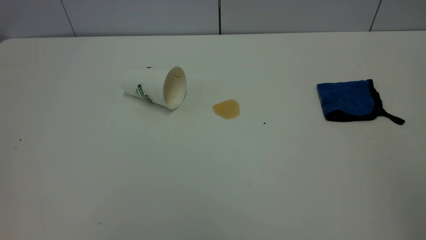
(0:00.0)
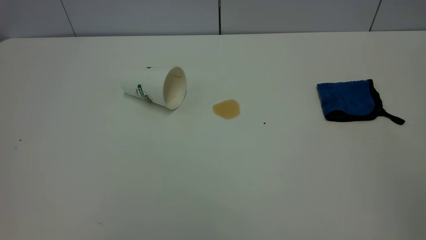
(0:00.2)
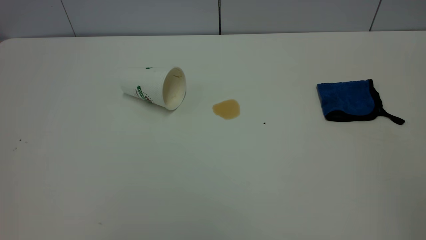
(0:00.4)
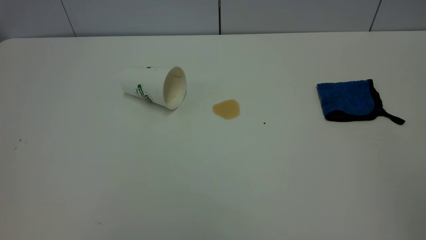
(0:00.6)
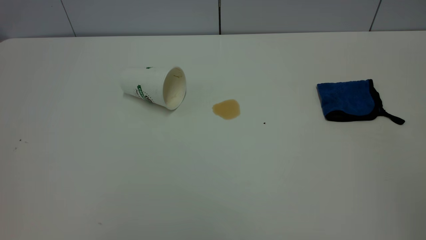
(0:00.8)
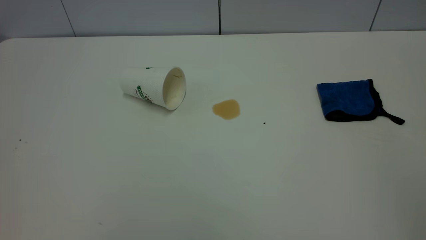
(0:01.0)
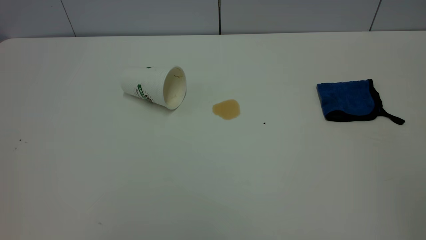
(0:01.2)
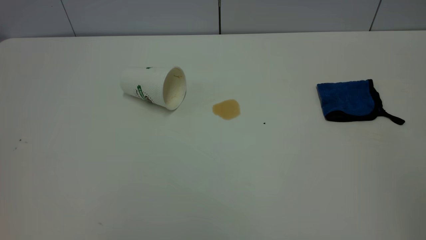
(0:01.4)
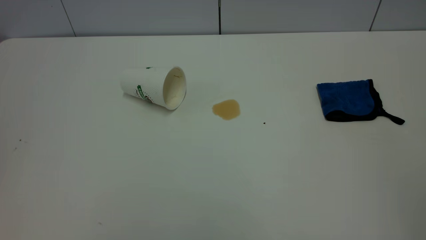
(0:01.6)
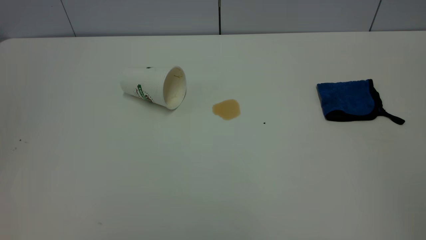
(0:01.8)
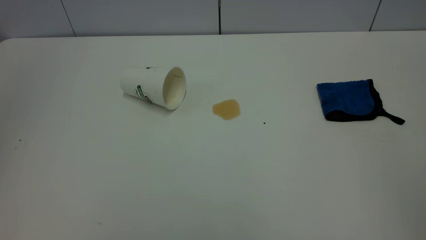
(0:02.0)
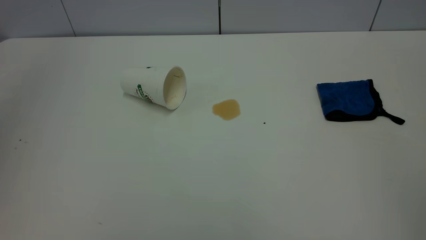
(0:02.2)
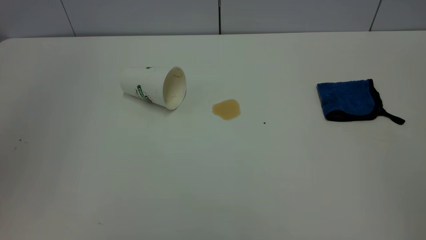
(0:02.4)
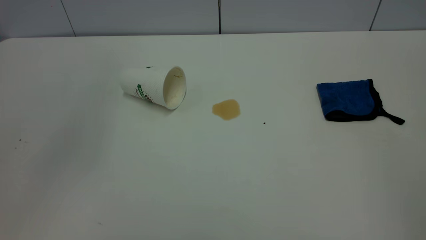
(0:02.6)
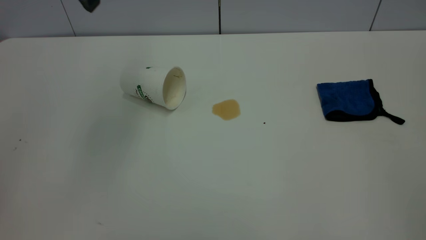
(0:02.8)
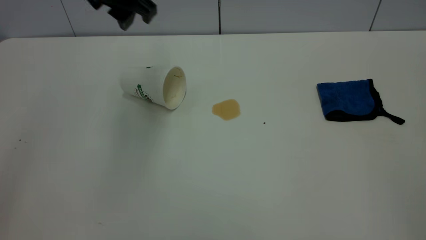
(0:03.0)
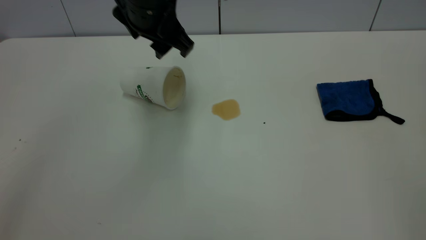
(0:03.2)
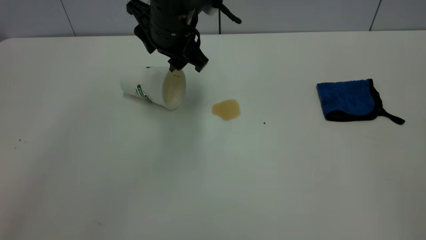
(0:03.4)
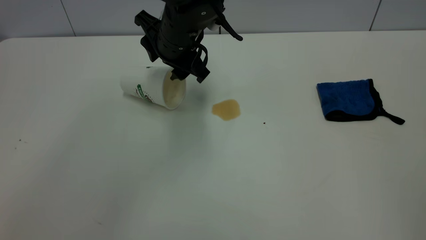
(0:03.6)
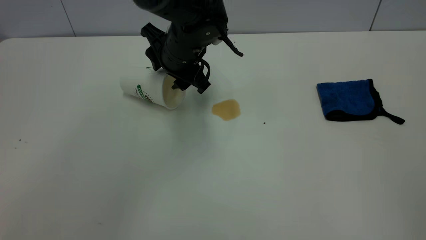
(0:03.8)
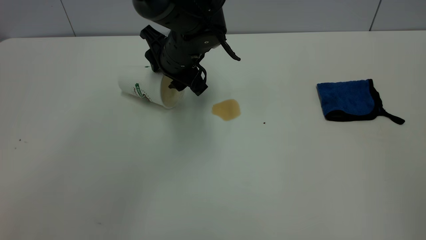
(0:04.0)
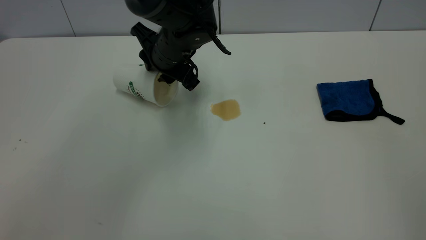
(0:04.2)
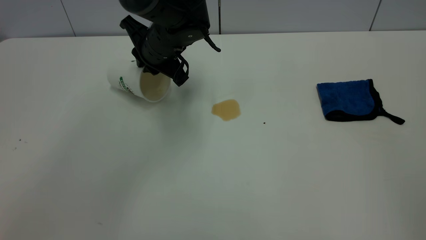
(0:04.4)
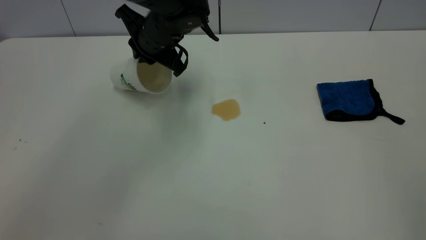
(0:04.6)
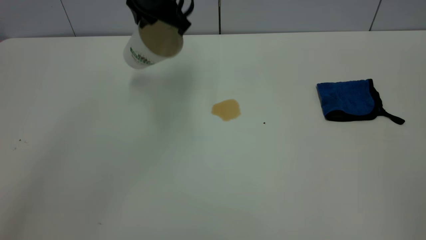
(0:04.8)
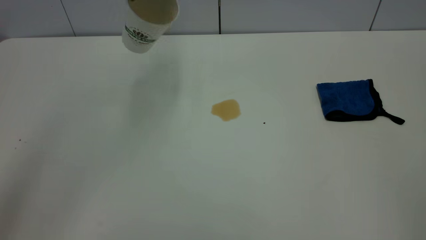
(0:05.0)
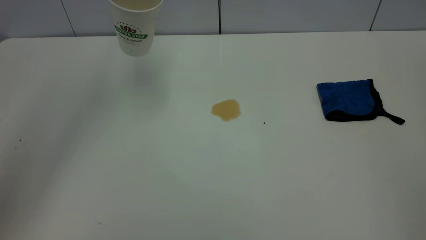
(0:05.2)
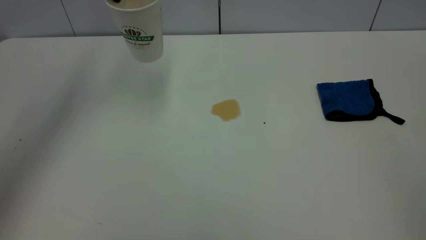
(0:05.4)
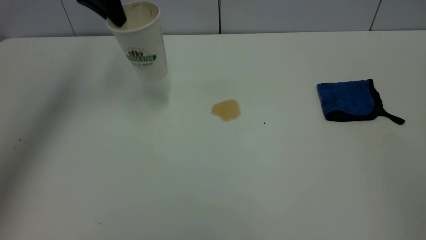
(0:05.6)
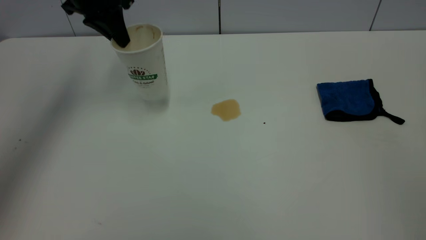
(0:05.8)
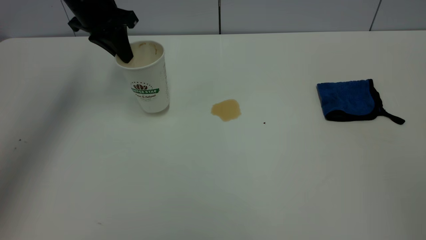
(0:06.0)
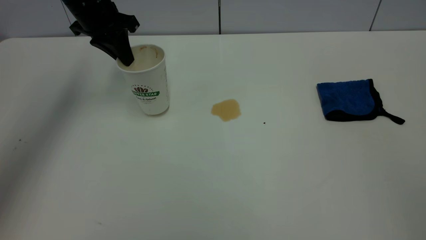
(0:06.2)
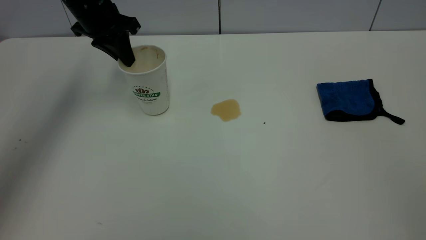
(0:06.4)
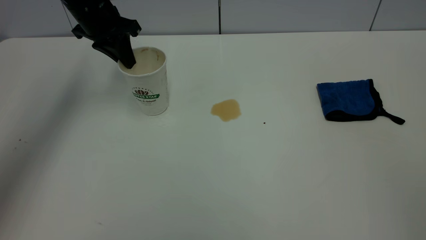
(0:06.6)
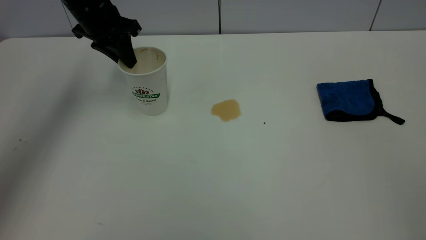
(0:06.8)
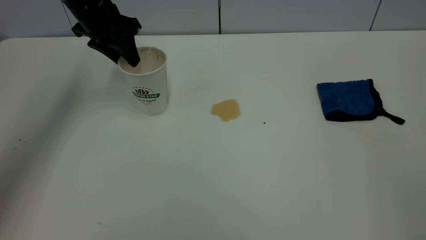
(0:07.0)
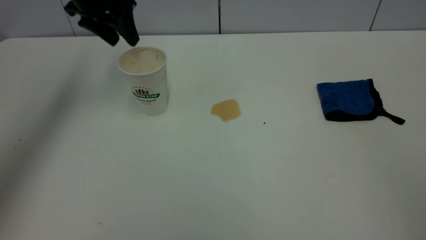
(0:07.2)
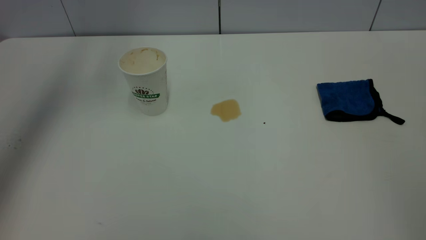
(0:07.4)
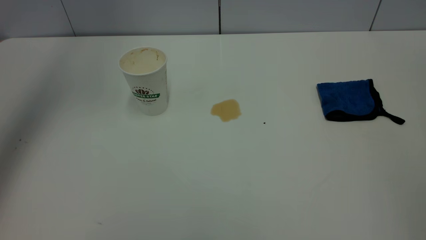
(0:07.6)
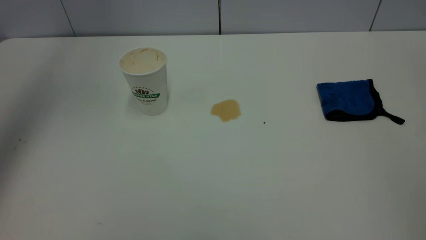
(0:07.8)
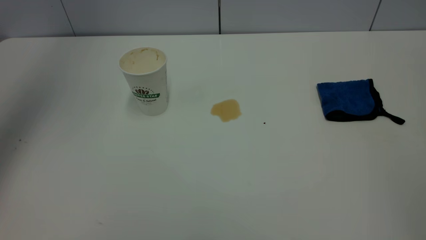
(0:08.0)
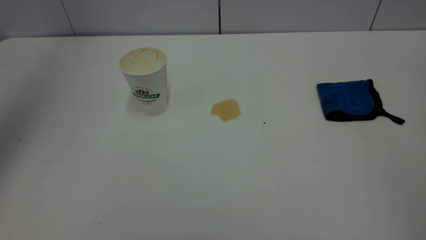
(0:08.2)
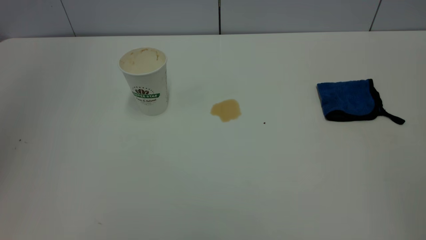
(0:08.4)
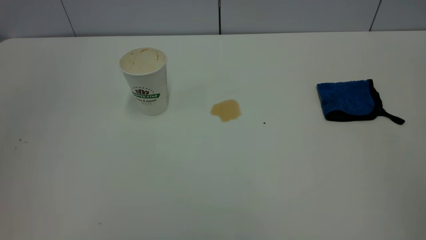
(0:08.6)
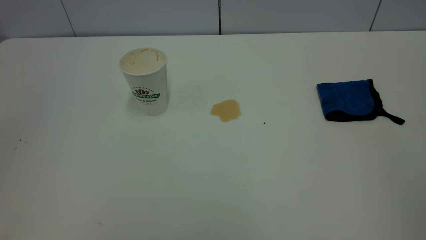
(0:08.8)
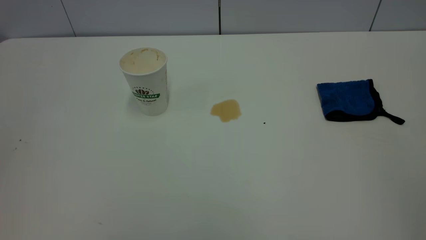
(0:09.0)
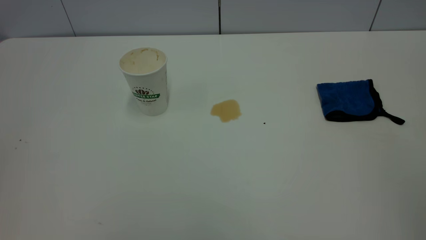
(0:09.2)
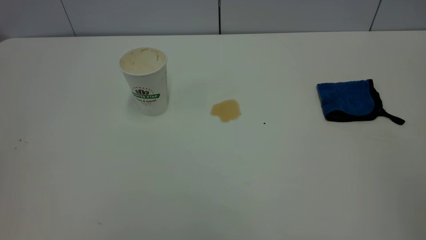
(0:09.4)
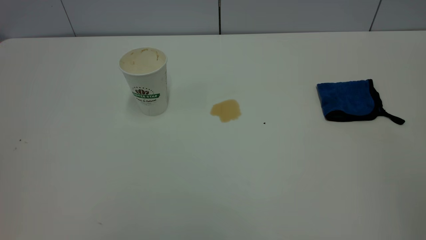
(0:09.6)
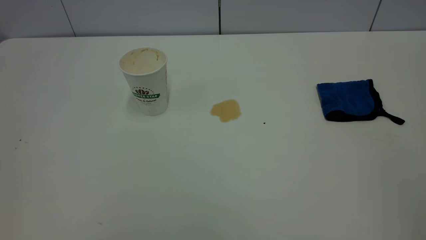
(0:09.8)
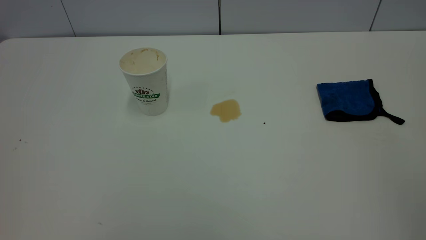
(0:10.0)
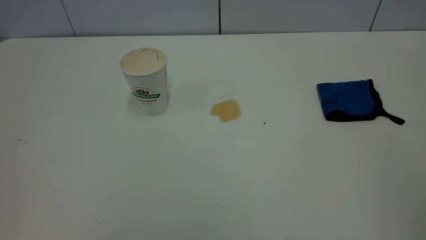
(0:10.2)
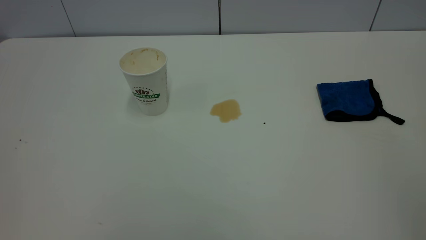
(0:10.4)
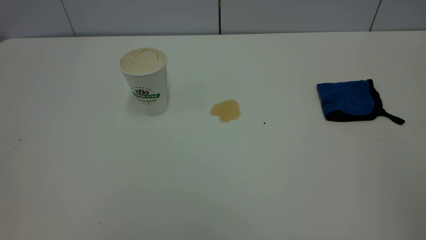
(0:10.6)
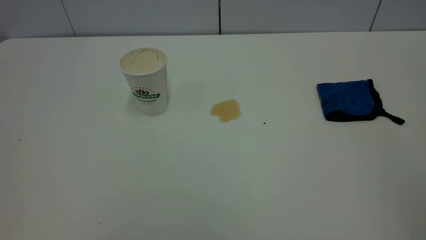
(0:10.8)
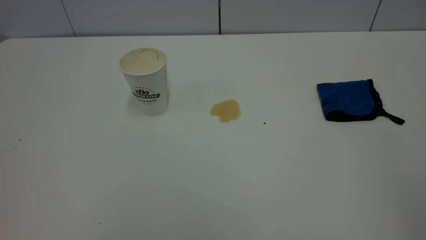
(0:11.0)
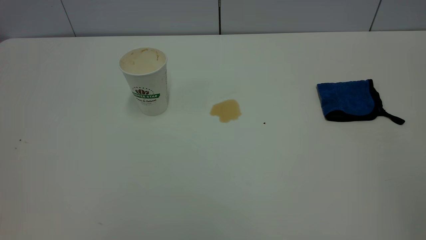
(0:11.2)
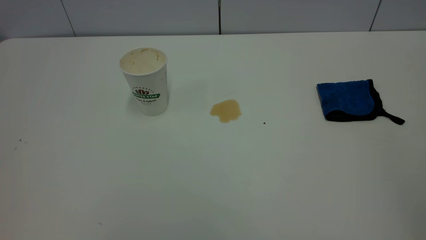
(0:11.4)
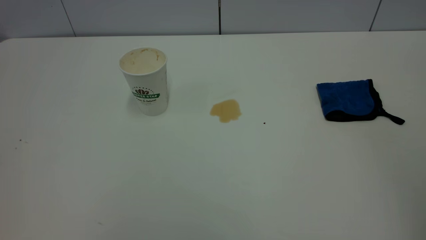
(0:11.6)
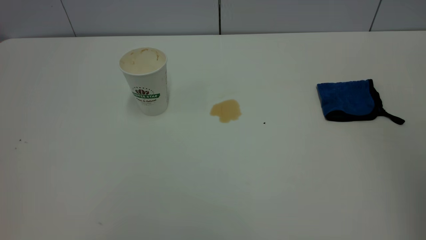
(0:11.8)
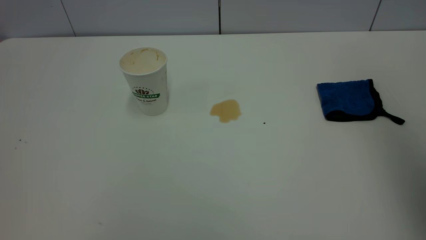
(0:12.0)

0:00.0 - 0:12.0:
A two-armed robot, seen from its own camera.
Task of the whole recording: the left gripper pick up the fallen cup and place it upright, the right gripper grasp the blue rag and wipe the tea stain on the table, the right gripper put the blue rag back in its original position.
Step, 0:00.0 - 0:07.0: Stand the paper cup upright.
0:01.6 - 0:03.0: The left gripper goes roughly 40 cm forward, to the right and downward.
0:03.0 - 0:04.4: The left gripper travels downward and forward by approximately 15 cm, and closes.
0:04.4 - 0:06.0: The left gripper moves to the left and upward, some 15 cm.
0:06.0 - 0:07.6: The left gripper heads upward, covering approximately 20 cm, and opens its fingers.
0:07.6 - 0:09.0: The left gripper goes roughly 40 cm backward.
0:10.4 - 0:12.0: The right gripper shifts some 20 cm forward, and opens its fingers.

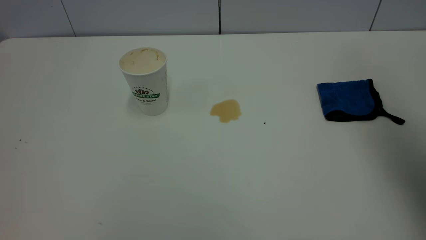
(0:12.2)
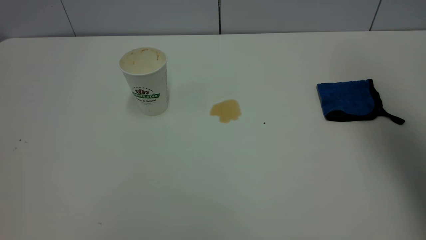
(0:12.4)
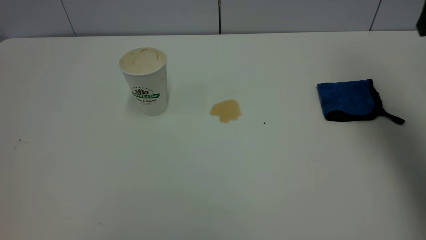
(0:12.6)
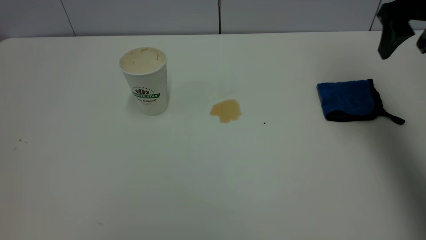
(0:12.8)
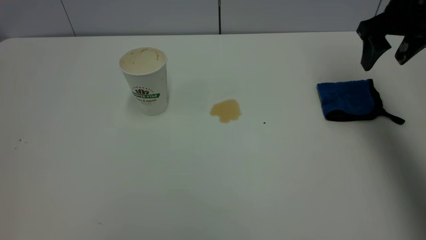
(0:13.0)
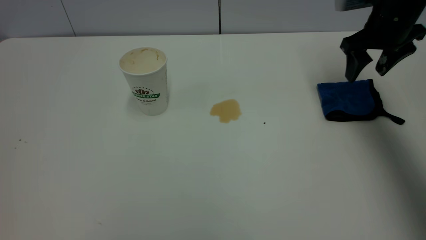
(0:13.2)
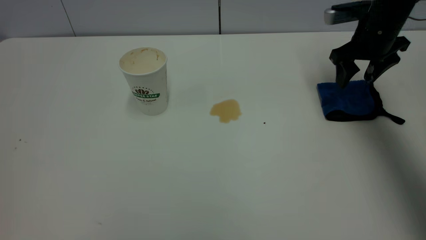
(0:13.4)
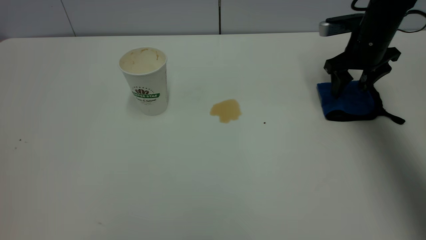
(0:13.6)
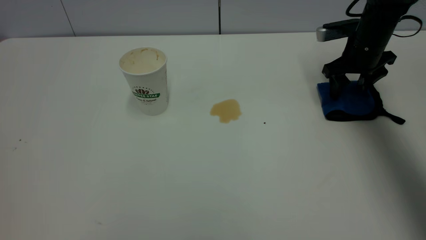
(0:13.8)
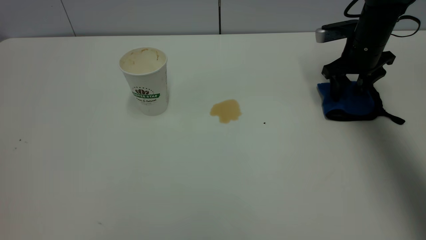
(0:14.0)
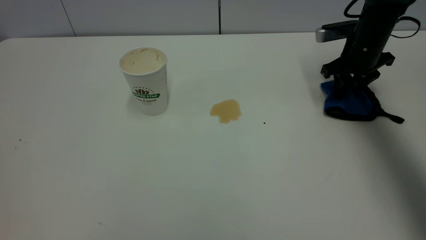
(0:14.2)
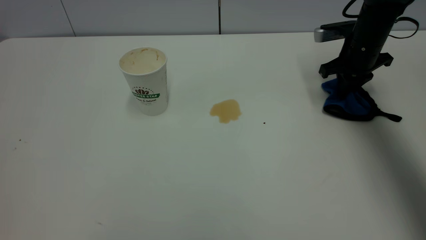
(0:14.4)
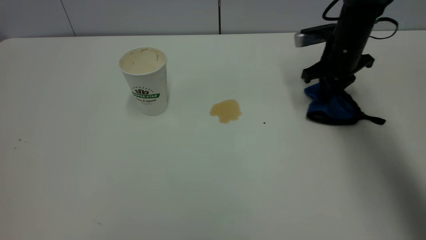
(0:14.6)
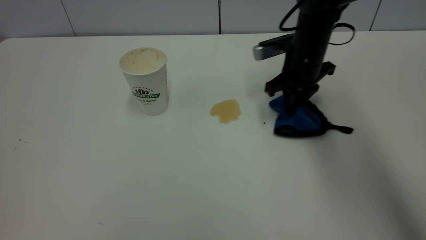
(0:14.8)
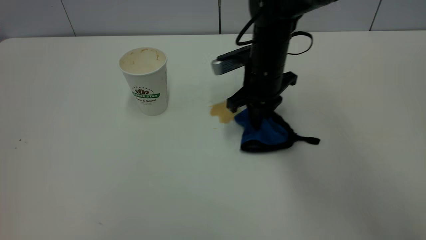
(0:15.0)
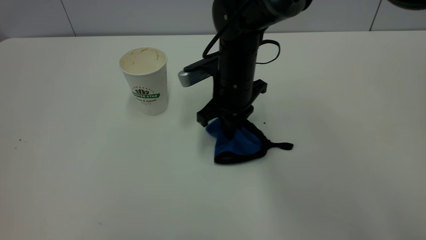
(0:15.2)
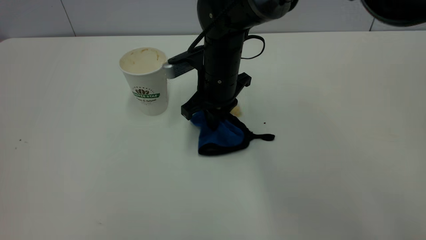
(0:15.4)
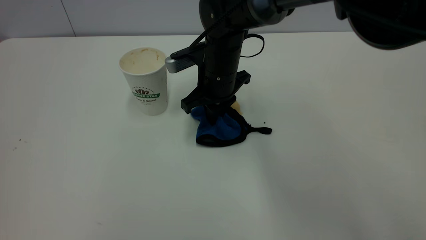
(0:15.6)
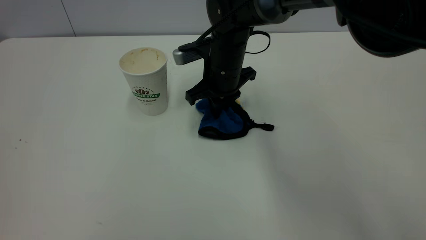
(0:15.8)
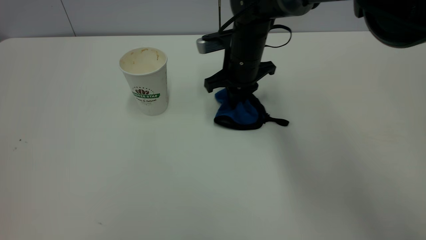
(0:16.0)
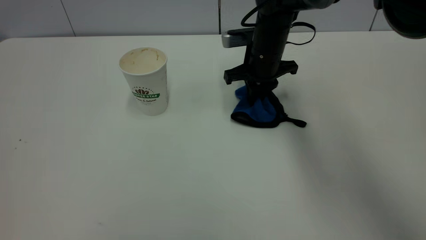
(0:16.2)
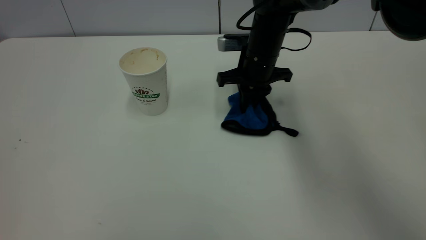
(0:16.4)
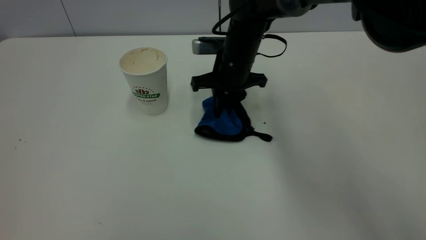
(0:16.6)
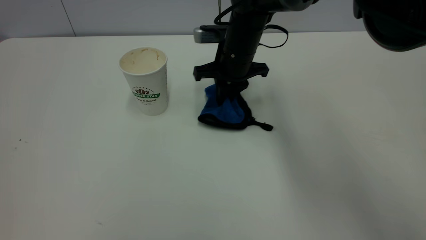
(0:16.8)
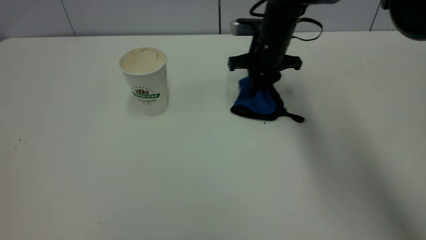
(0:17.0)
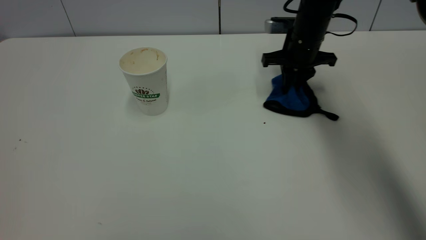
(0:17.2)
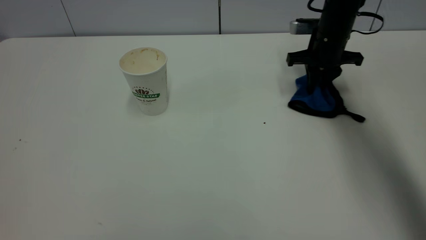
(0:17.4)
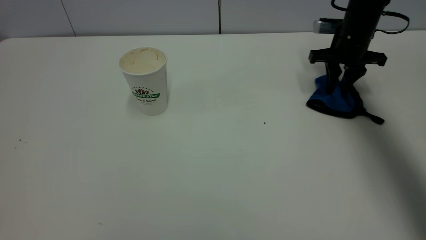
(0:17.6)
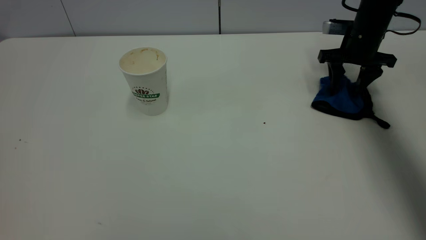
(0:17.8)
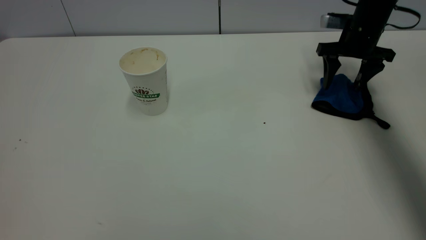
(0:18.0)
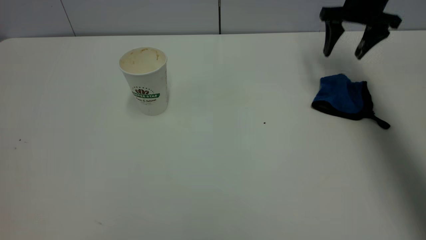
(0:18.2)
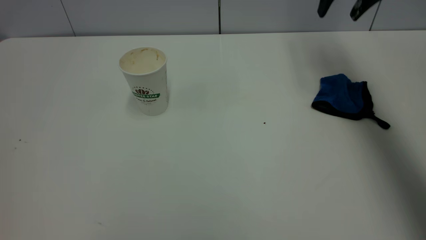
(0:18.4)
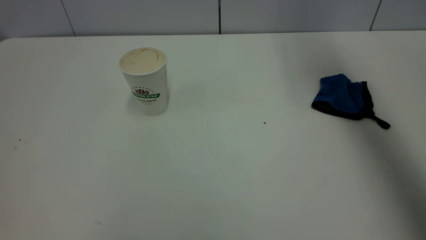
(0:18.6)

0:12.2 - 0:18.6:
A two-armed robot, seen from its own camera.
Task of the whole recording: the left gripper pick up the fallen cup and place it upright, the right gripper grasp the blue rag and wipe the tea stain on the table, the right gripper put the blue rag back in its original position.
Step, 0:12.2 - 0:18.2: Wipe the stains off the table with a rag.
0:12.2 - 0:13.8: The right gripper travels downward and forward by about 35 cm.
0:13.8 - 0:15.4: The right gripper goes roughly 25 cm to the left, and closes.
0:15.4 - 0:17.0: The right gripper moves left and right over some 10 cm, changing direction 2 times.
0:17.0 - 0:18.6: The right gripper heads upward and to the right, covering approximately 25 cm, and opens up.
